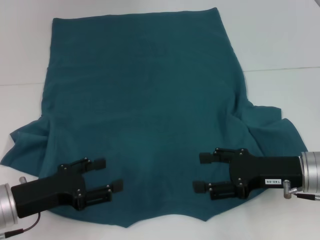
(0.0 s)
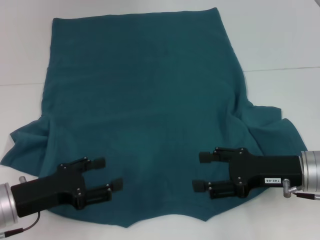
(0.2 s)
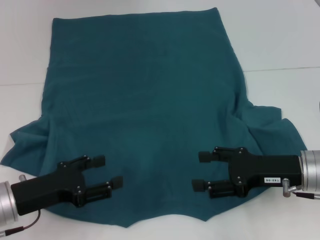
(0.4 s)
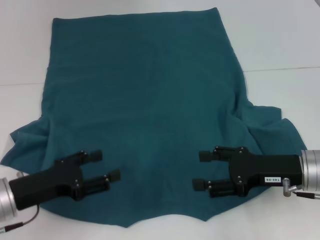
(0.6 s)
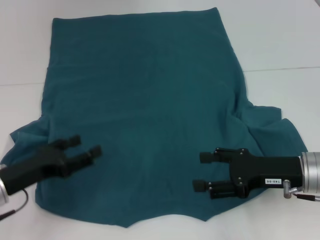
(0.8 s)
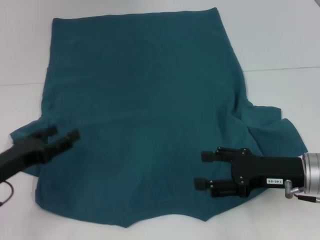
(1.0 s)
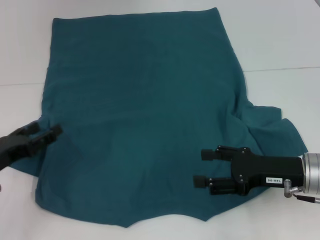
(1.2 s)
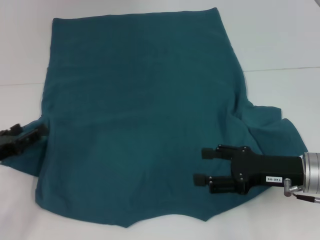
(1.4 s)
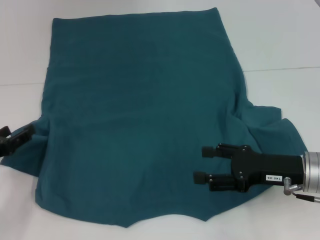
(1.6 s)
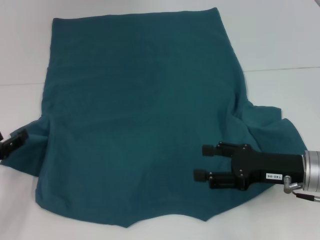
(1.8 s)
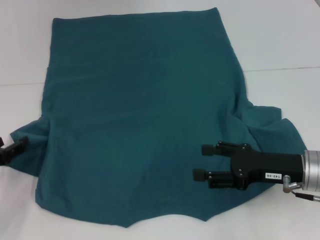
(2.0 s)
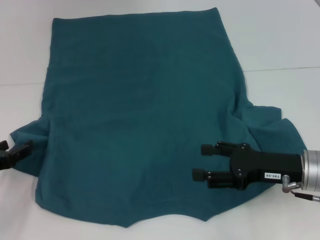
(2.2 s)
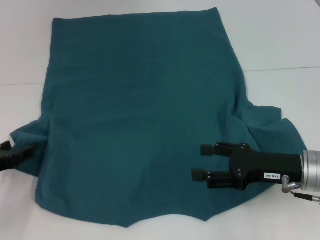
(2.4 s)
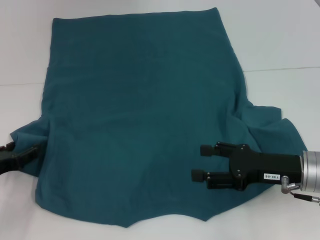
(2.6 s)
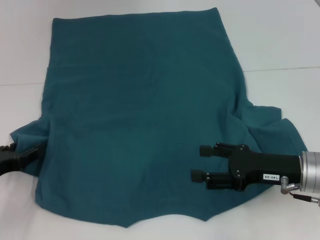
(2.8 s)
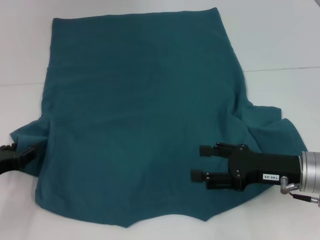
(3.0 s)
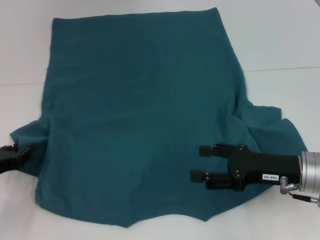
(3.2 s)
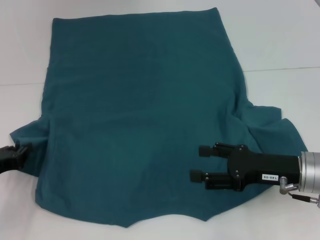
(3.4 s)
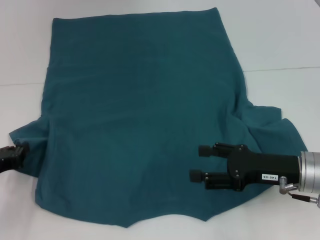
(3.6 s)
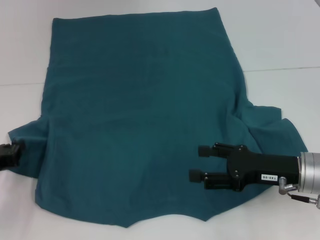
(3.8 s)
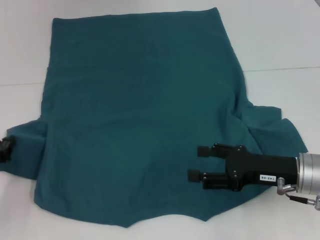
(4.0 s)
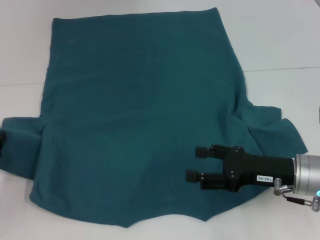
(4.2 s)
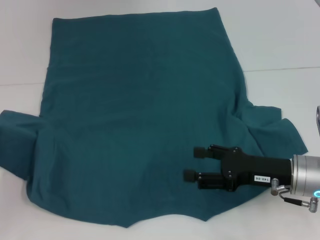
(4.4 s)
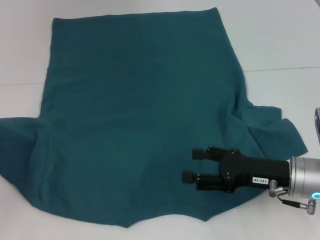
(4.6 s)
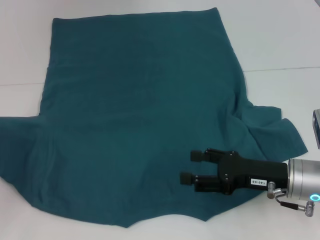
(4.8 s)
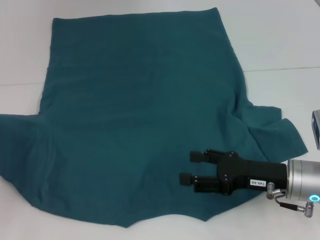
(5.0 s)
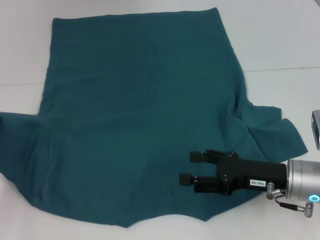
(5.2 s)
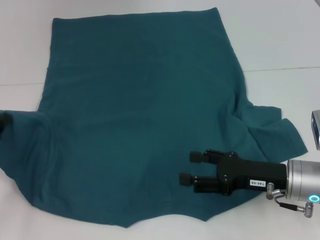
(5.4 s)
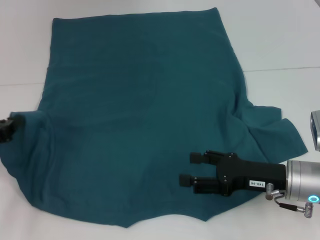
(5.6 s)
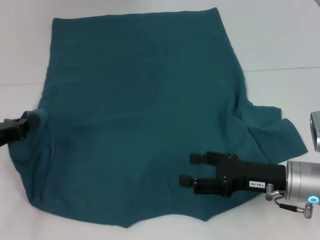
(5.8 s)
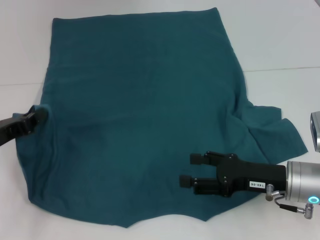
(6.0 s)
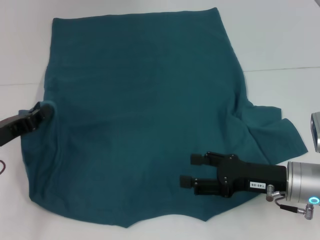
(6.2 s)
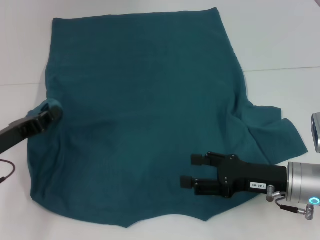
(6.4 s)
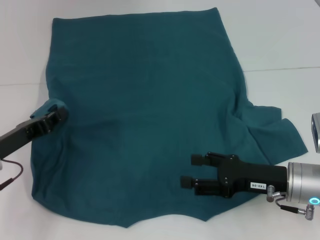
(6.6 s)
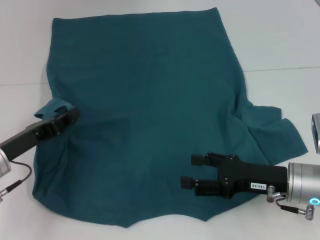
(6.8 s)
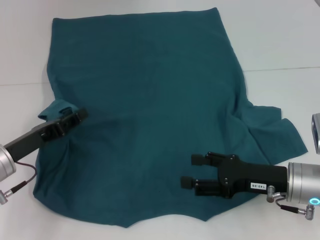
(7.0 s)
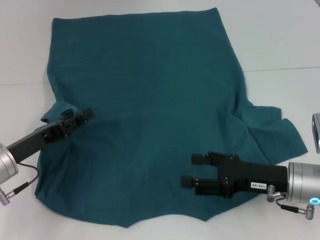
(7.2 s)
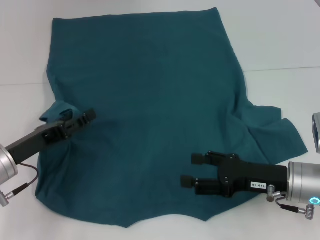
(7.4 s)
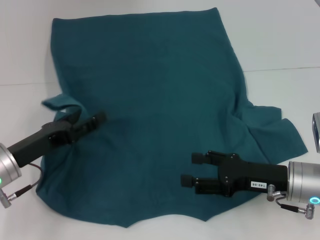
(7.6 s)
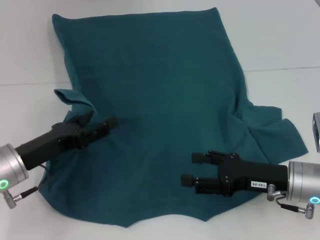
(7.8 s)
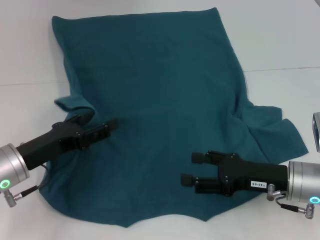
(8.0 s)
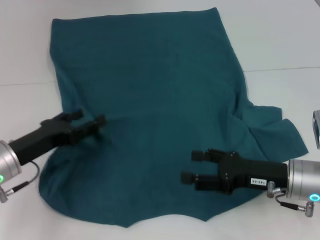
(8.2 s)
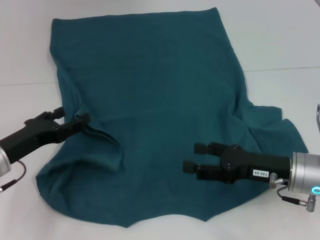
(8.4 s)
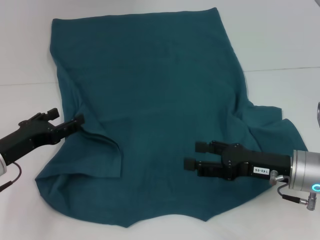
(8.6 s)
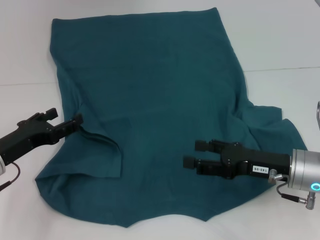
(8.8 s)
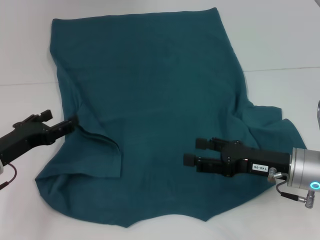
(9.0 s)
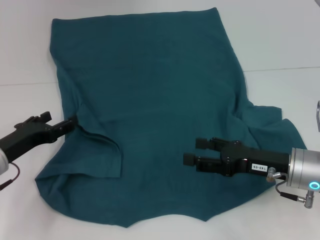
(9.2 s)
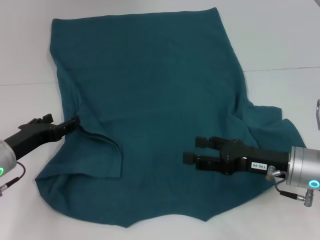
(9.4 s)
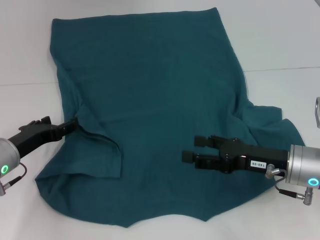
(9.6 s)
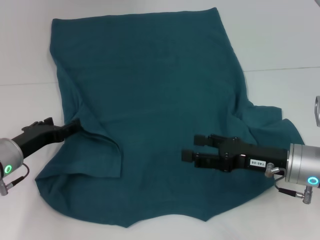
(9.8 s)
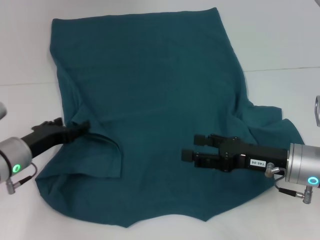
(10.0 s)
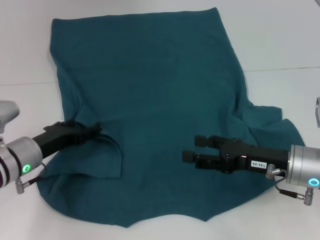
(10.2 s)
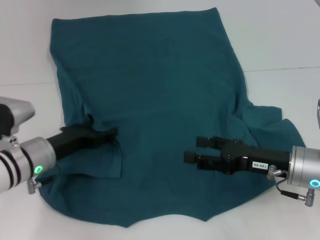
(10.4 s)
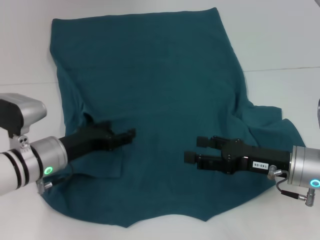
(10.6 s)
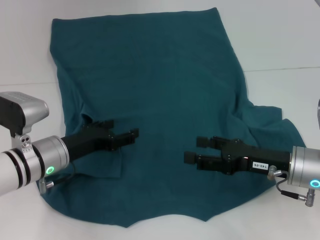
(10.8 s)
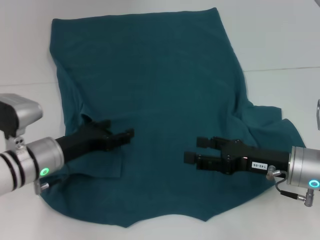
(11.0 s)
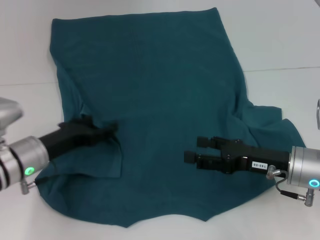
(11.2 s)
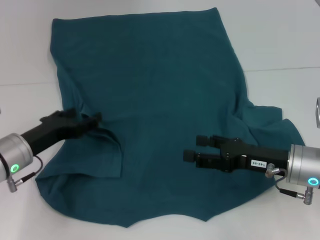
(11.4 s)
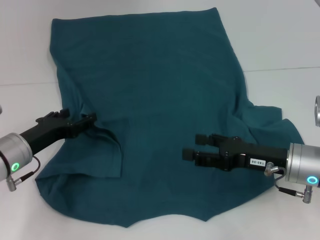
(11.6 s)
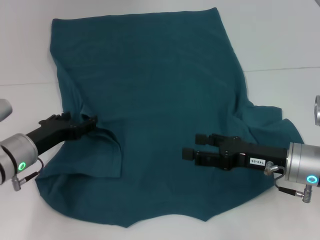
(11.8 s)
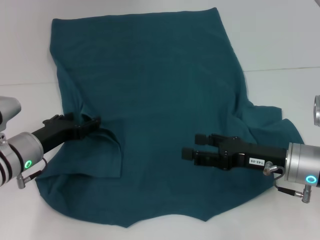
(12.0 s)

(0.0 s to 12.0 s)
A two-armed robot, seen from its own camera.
0.0 s - 1.6 s: The left gripper is displaced to the left by about 10 cm.
1.6 s - 3.0 s: The grippers stay close to where they were, moving slightly.
3.0 s - 4.4 s: The left gripper closes up.
4.4 s - 6.0 s: The left gripper changes place by approximately 5 cm.
6.0 s - 7.6 s: The left gripper is displaced to the right by some 5 cm, and opens.
7.6 s - 9.0 s: There are only small adjustments of the grippers.
9.0 s - 10.4 s: The left gripper moves to the right, approximately 5 cm.
10.4 s - 12.0 s: The grippers move only a little.

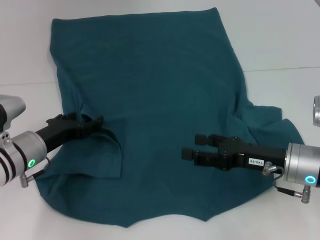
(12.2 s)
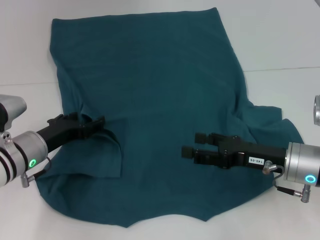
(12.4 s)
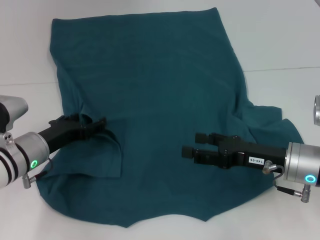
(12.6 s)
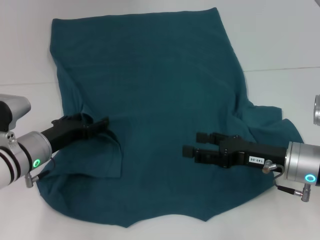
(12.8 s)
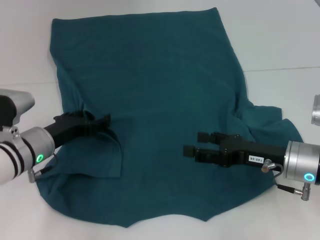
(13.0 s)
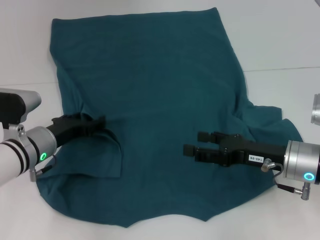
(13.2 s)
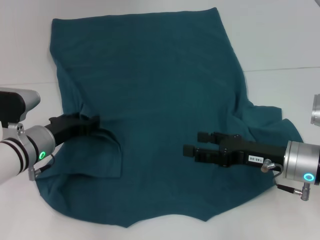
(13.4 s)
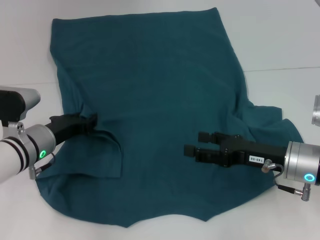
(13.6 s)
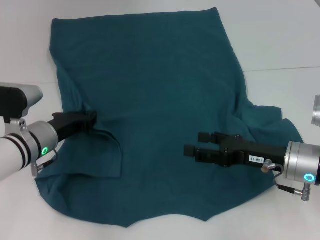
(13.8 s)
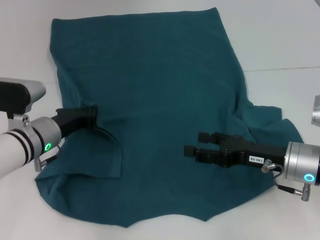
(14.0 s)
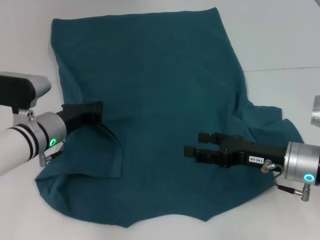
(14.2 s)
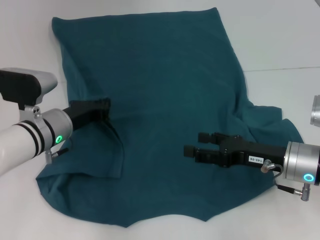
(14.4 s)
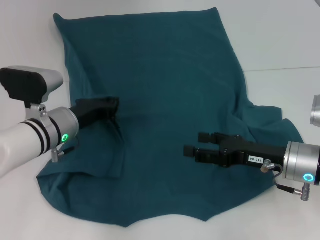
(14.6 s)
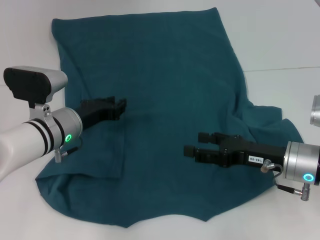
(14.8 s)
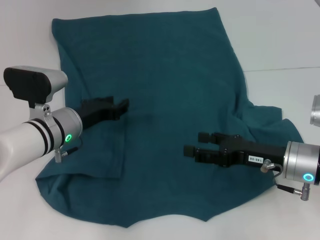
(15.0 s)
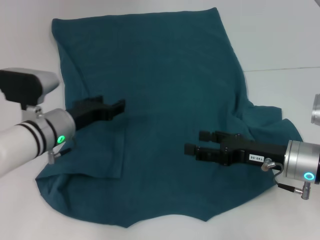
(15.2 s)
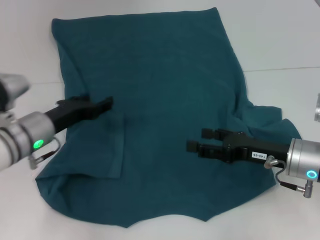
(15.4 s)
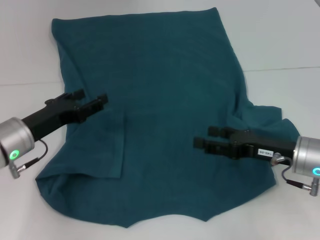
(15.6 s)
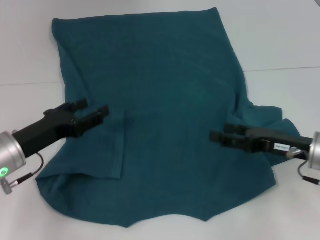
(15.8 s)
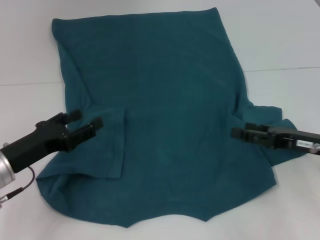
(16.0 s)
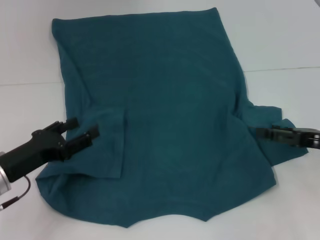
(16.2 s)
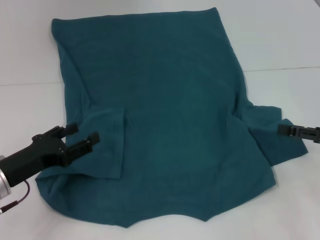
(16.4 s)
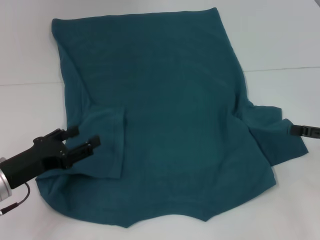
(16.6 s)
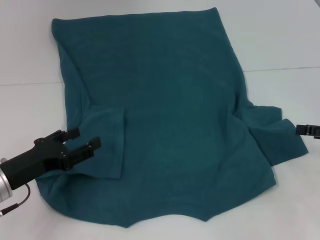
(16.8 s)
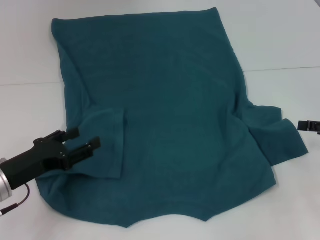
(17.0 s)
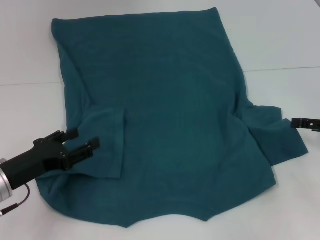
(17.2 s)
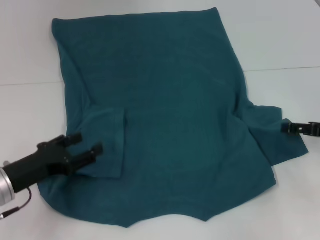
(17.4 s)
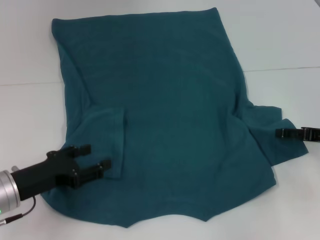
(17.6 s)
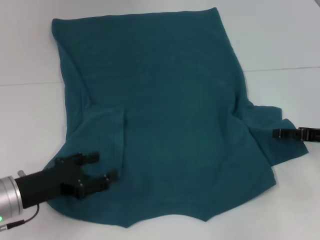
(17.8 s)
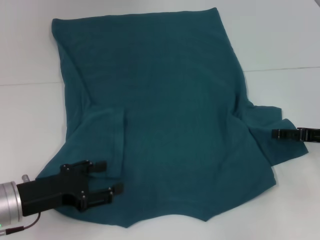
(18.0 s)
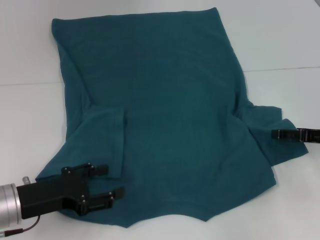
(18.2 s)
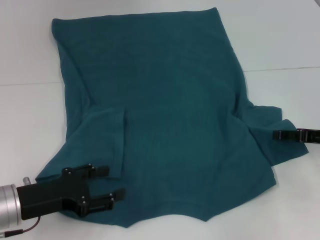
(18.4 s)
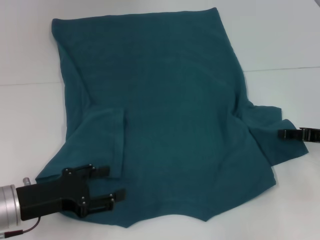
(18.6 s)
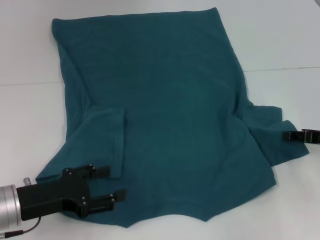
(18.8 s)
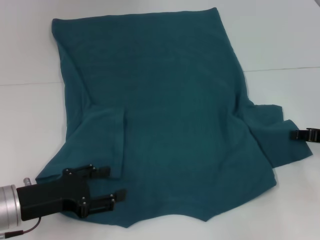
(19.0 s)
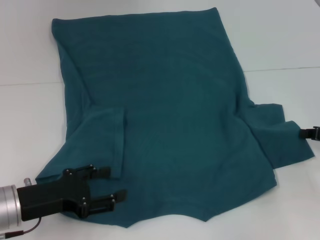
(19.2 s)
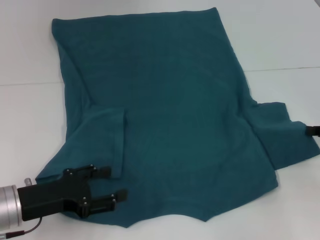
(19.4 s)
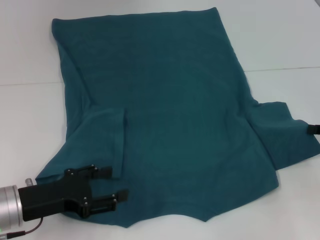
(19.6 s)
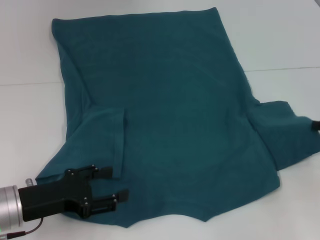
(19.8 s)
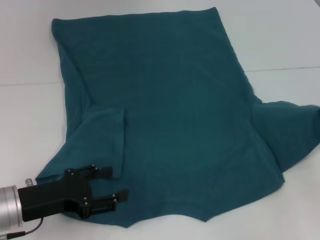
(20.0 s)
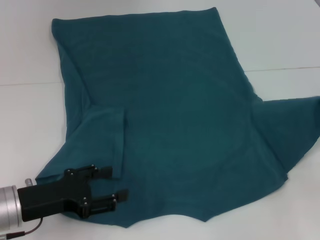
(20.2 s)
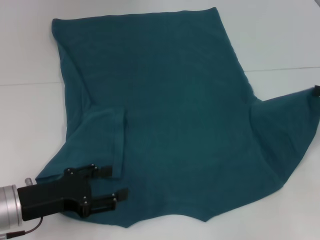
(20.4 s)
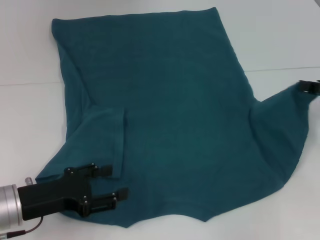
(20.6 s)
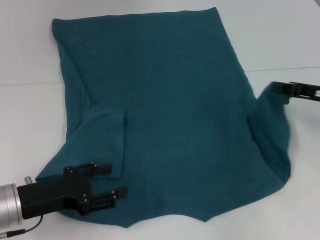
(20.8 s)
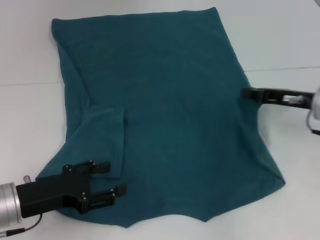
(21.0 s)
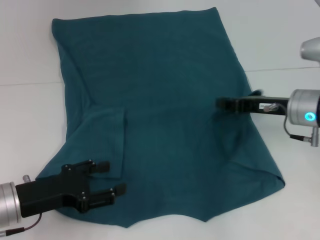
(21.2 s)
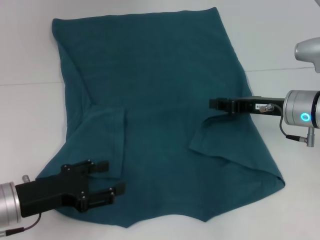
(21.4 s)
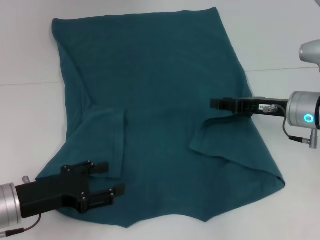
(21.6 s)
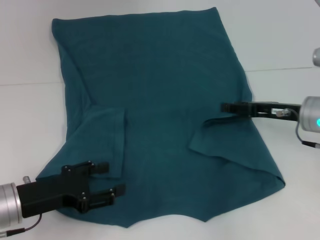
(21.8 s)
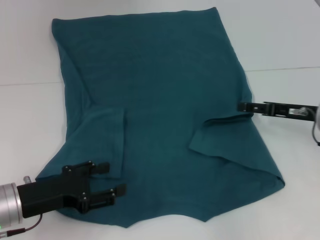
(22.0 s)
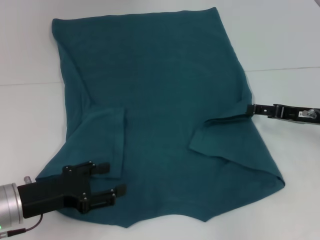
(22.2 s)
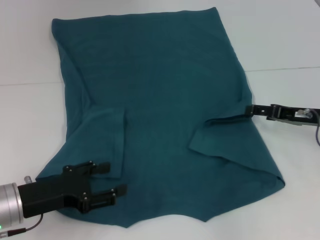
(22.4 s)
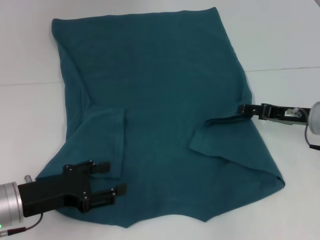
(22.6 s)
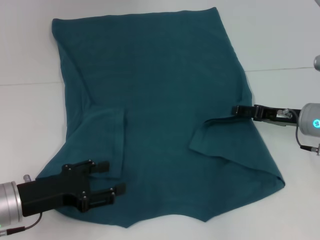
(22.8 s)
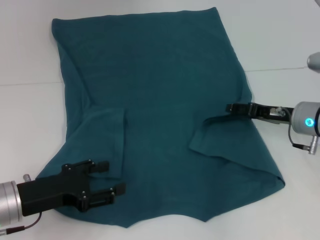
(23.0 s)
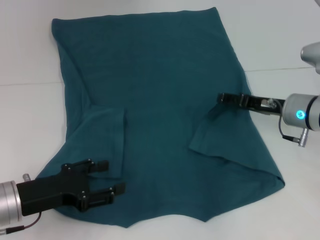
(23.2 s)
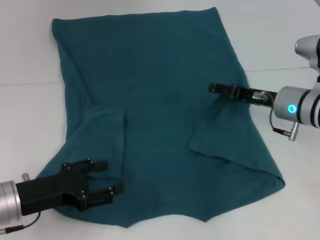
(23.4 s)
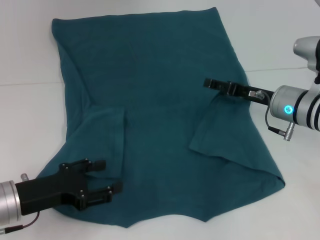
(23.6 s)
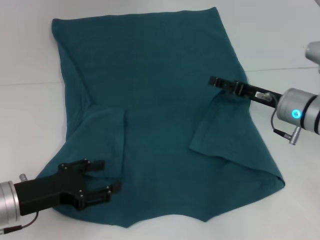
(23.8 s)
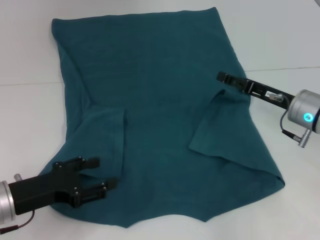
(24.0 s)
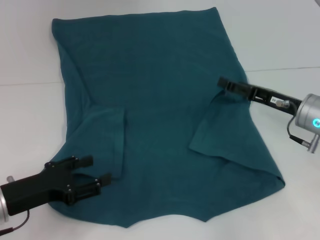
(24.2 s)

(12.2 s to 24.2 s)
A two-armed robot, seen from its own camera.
Step, 12.2 s - 15.2 s: Fold the bottom left sleeve with your left hand.
Step, 15.4 s - 24.0 s: Fold the bottom right sleeve to the right.
12.2 s - 13.8 s: The left gripper closes its fingers.
13.8 s - 15.2 s: The left gripper closes and opens again.
15.2 s - 16.6 s: The right gripper is displaced to the right by roughly 15 cm, while the left gripper goes approximately 15 cm backward and to the left.
16.6 s - 18.2 s: The right gripper shifts by some 5 cm.
18.2 s - 19.8 s: The right gripper closes its fingers.
19.8 s - 21.2 s: The right gripper is displaced to the left and forward by about 15 cm.
21.2 s - 22.6 s: The right gripper opens.
